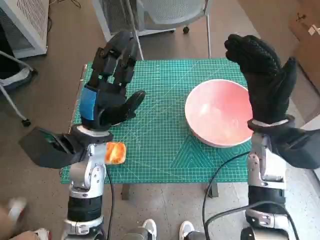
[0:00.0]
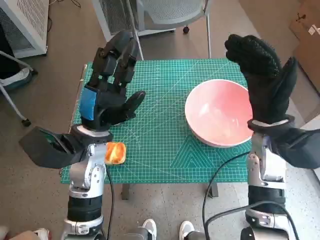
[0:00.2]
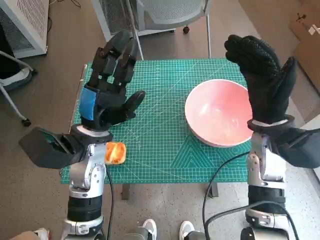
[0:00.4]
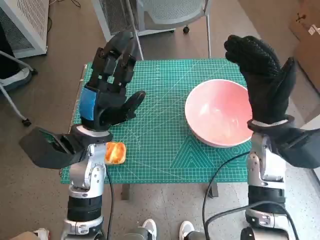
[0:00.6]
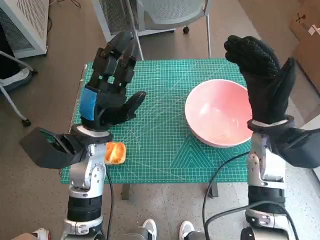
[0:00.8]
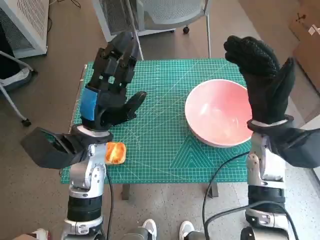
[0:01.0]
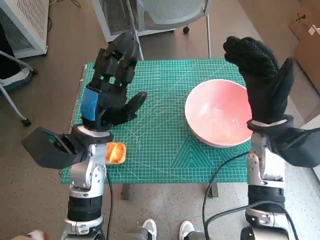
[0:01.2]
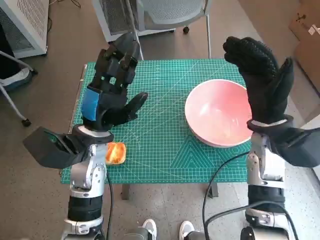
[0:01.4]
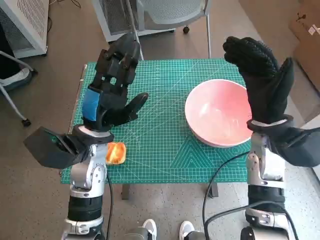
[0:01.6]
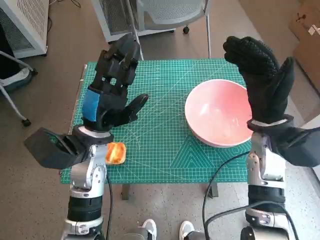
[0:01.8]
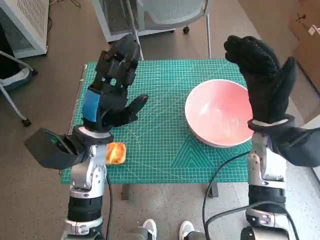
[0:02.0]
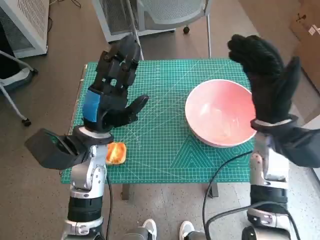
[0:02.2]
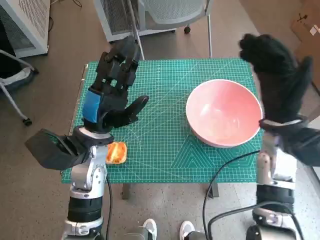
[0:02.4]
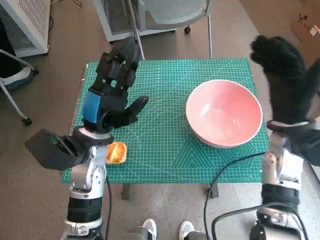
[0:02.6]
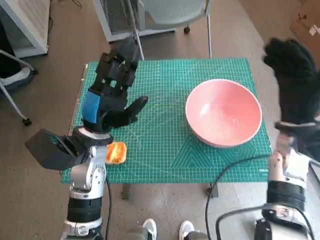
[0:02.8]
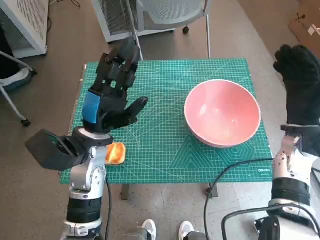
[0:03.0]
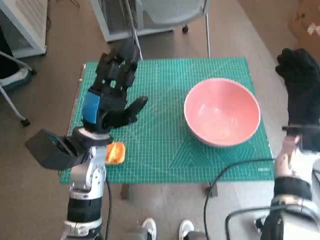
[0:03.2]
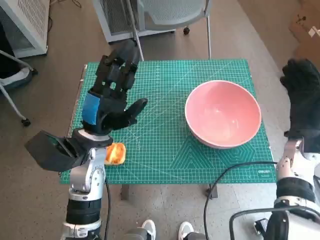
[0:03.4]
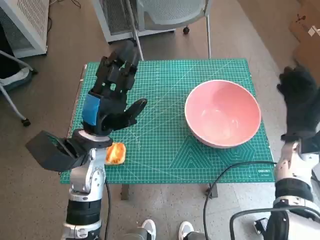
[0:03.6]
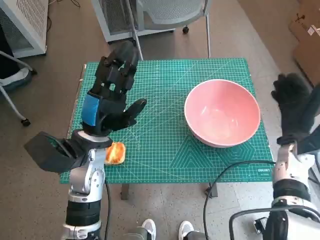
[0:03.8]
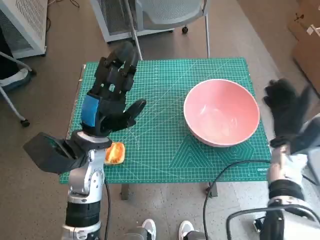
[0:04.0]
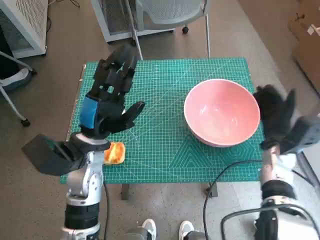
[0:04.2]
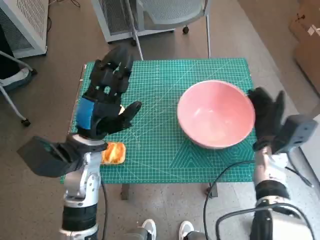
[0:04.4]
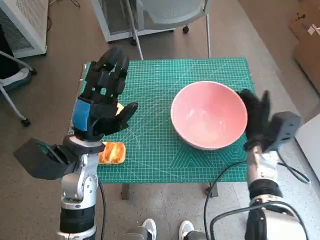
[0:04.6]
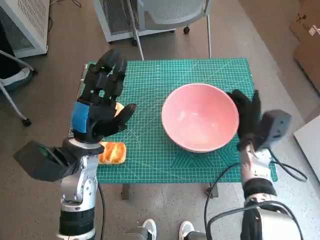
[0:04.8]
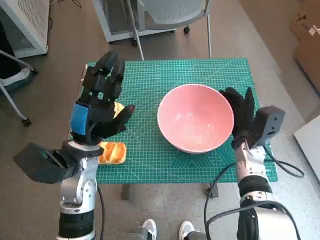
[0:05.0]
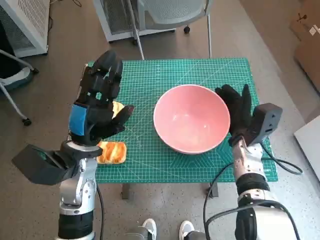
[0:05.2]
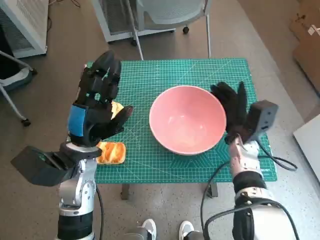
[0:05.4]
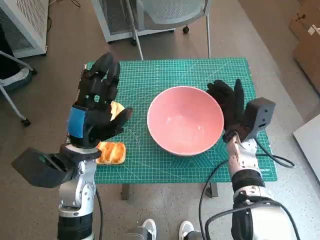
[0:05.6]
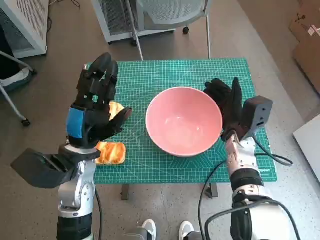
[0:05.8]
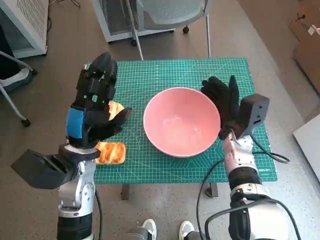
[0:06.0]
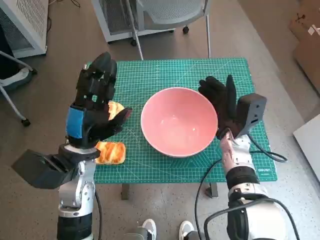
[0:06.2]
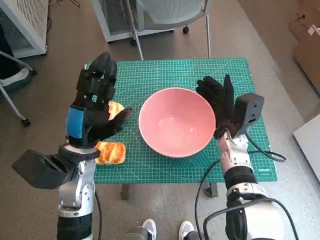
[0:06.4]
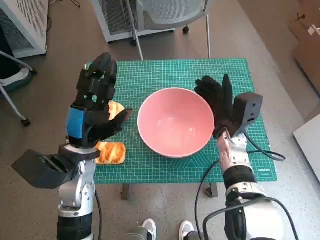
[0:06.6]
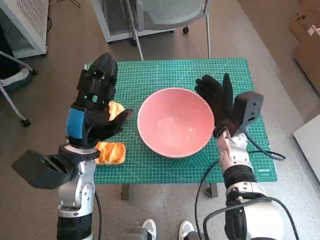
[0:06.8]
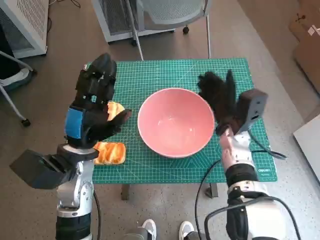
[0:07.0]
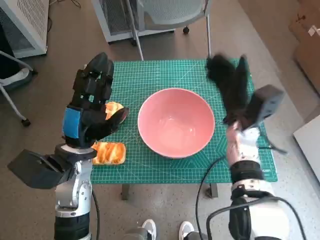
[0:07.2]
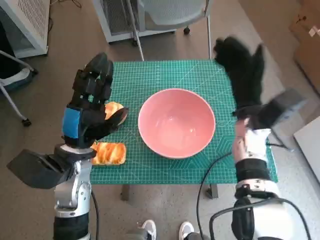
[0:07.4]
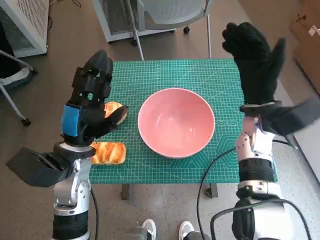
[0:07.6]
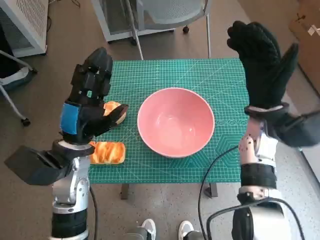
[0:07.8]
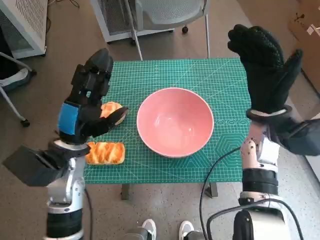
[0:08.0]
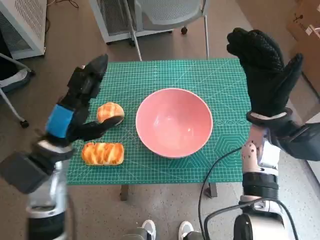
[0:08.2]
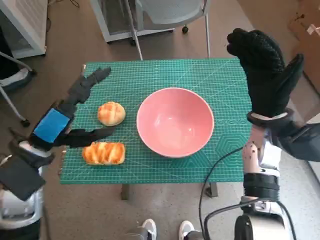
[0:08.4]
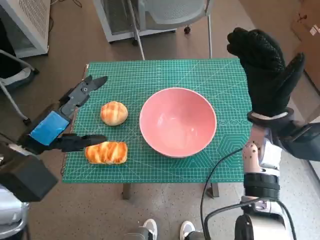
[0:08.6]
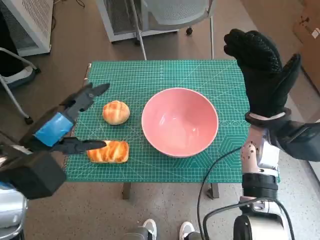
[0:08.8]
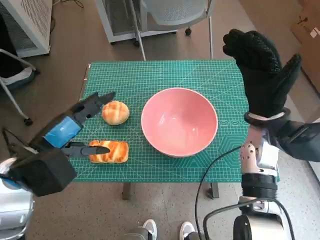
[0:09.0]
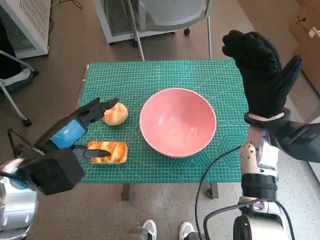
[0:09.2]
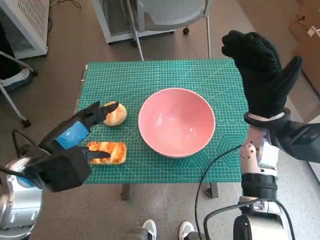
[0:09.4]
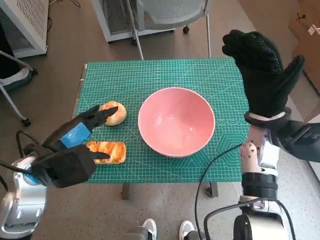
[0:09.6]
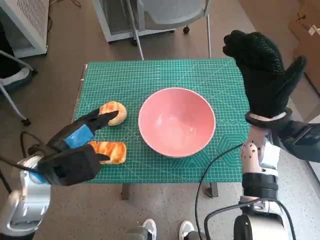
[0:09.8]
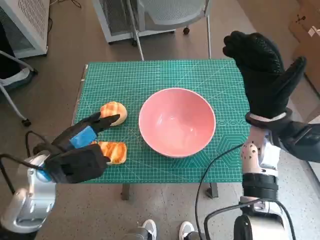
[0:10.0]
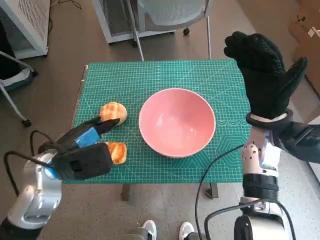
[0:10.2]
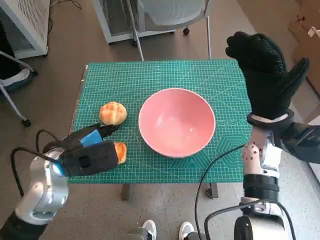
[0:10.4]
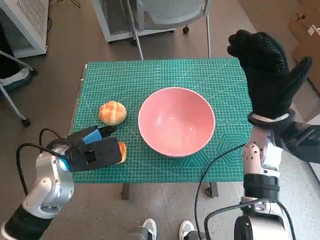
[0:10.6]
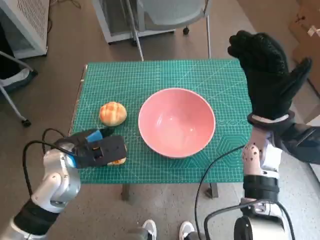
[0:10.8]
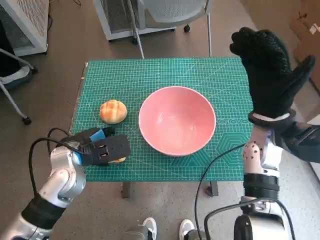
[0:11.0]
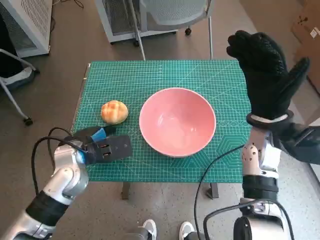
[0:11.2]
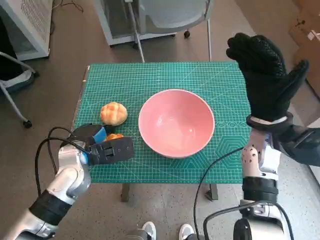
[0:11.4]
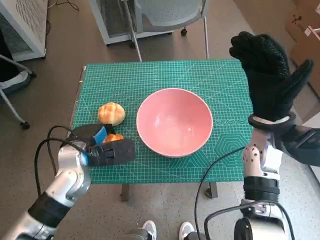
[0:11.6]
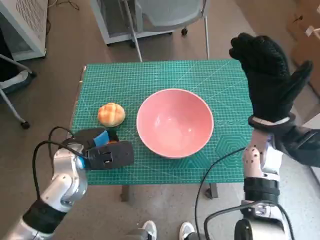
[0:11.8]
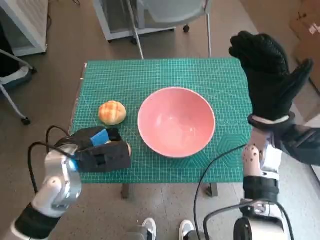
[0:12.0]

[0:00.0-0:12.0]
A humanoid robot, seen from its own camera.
Step, 0:00.0 to 0:06.8: Move the pink bowl to the center of table with right hand.
Step, 0:07.0 to 0:11.0: Grasp the long bread with left hand.
0:01.6 to 0:03.0: The right hand is displaced to the right by some 5 cm.
0:03.0 to 0:04.4: The right hand goes roughly 10 cm downward.
0:04.4 to 0:06.0: The right hand moves to the left, approximately 10 cm.
0:06.0 to 0:07.6: The right hand shifts some 10 cm upward.
0:07.6 to 0:09.0: The left hand goes about 5 cm upward.
0:09.0 to 0:10.4: The left hand travels downward by about 5 cm.

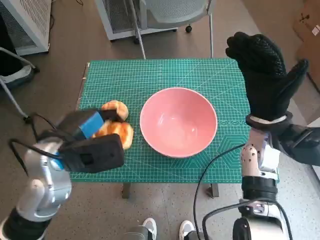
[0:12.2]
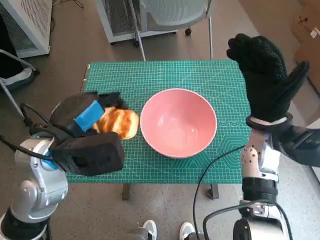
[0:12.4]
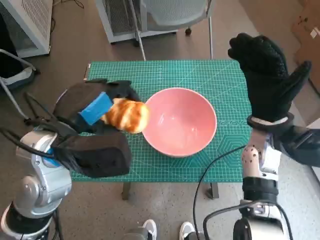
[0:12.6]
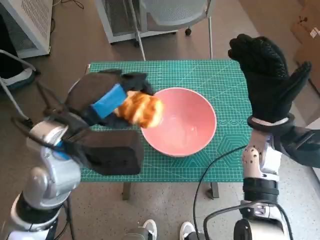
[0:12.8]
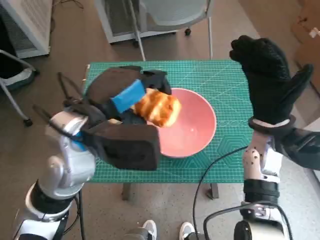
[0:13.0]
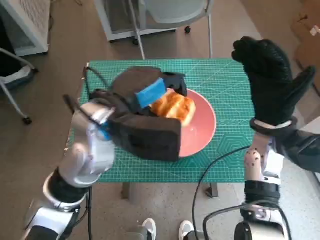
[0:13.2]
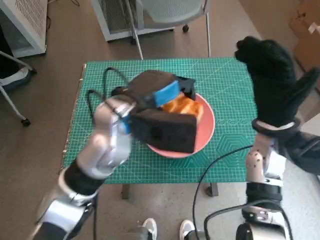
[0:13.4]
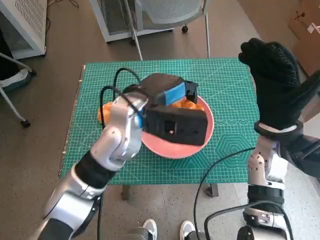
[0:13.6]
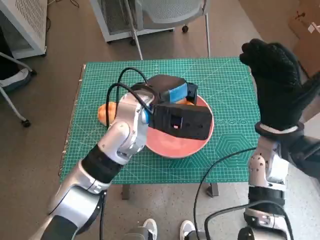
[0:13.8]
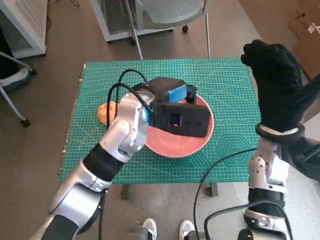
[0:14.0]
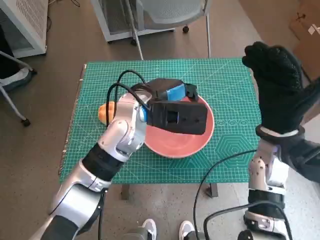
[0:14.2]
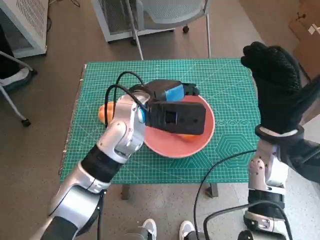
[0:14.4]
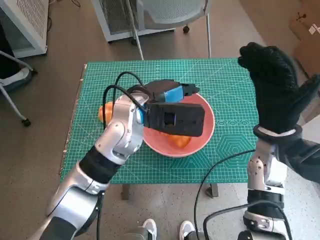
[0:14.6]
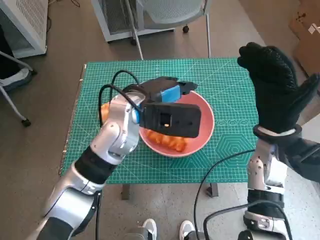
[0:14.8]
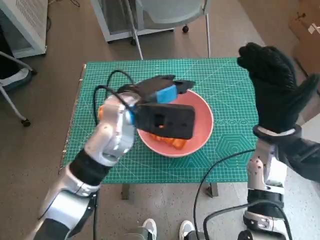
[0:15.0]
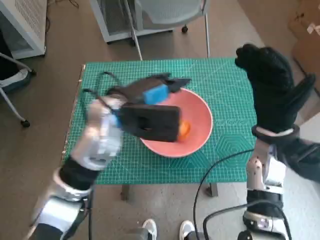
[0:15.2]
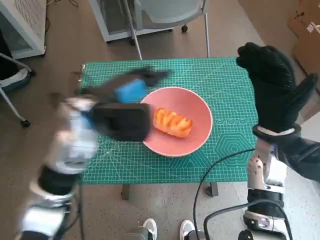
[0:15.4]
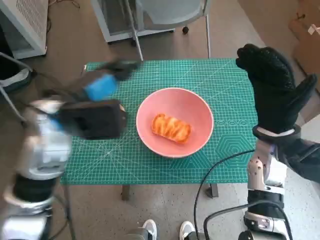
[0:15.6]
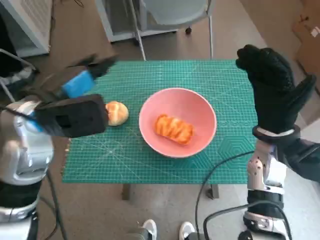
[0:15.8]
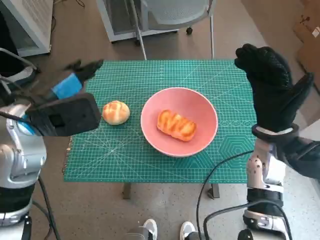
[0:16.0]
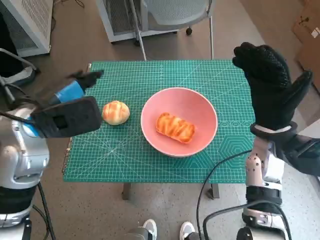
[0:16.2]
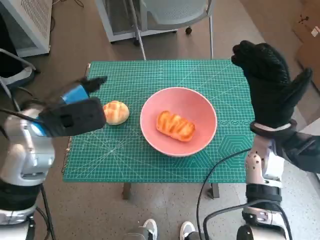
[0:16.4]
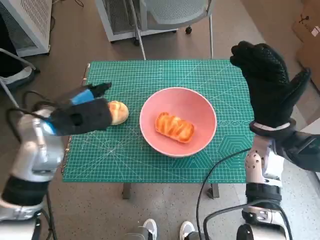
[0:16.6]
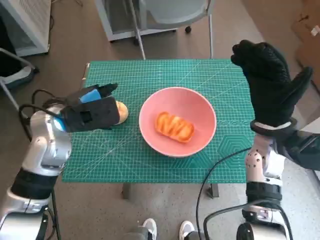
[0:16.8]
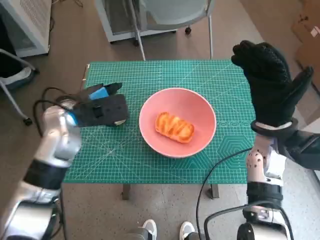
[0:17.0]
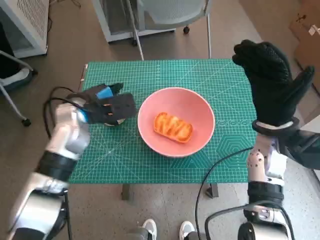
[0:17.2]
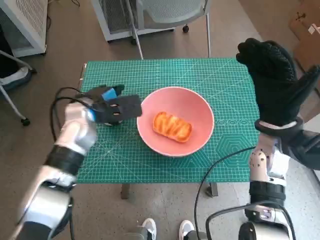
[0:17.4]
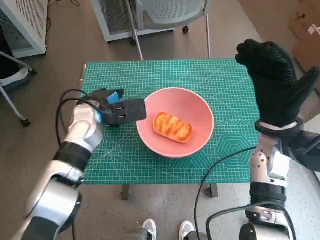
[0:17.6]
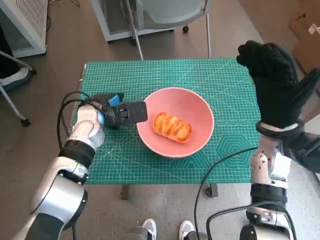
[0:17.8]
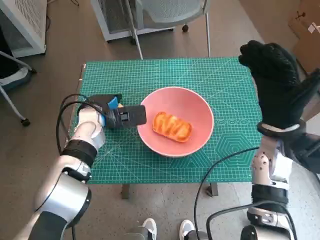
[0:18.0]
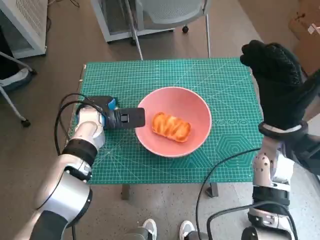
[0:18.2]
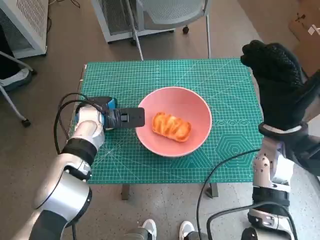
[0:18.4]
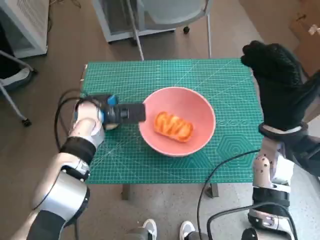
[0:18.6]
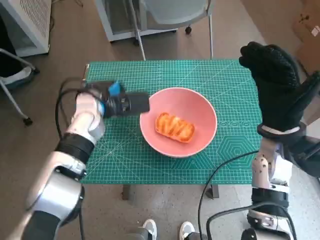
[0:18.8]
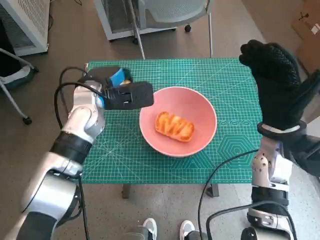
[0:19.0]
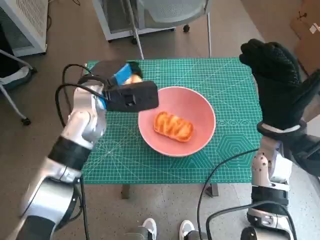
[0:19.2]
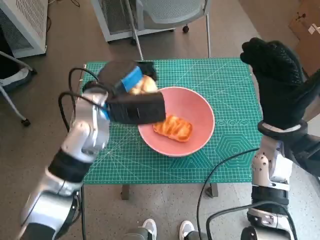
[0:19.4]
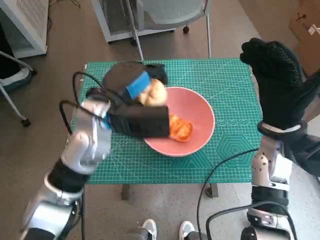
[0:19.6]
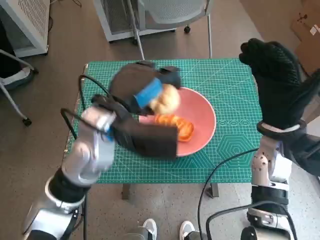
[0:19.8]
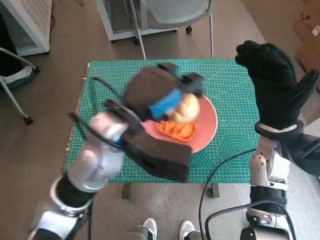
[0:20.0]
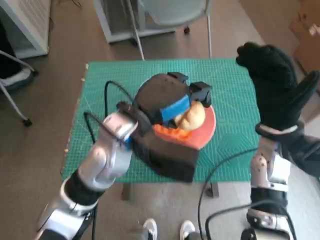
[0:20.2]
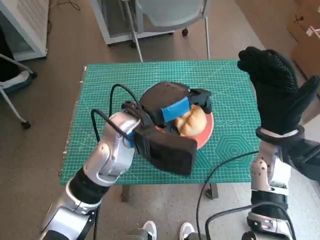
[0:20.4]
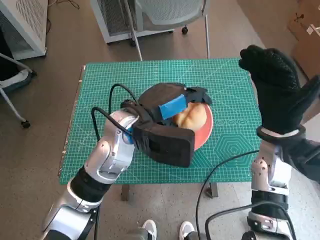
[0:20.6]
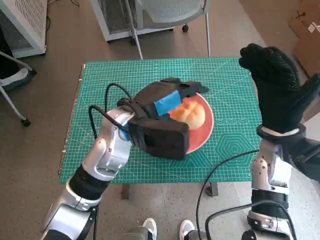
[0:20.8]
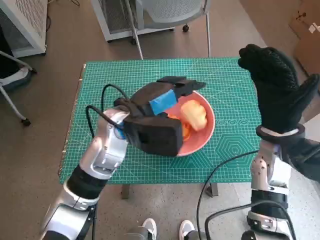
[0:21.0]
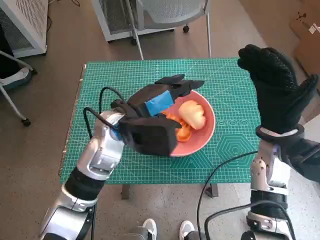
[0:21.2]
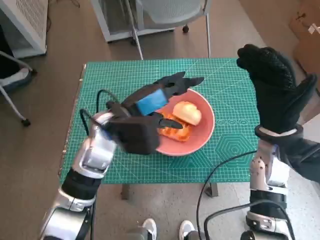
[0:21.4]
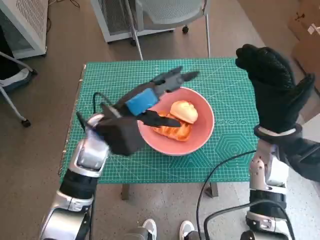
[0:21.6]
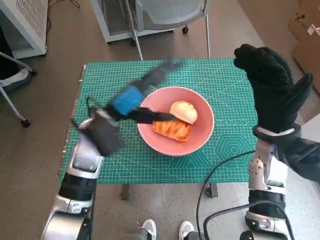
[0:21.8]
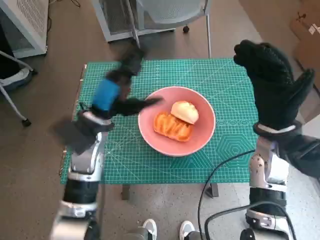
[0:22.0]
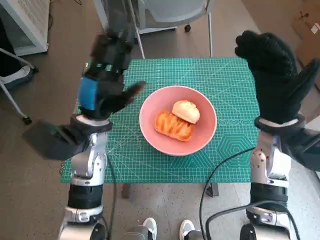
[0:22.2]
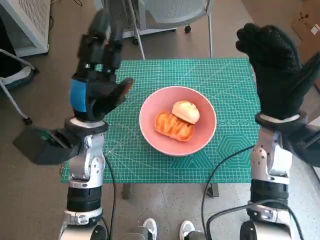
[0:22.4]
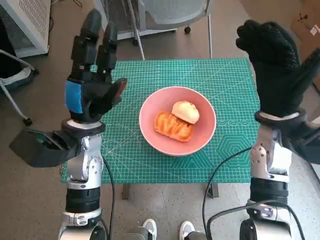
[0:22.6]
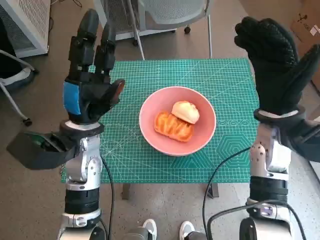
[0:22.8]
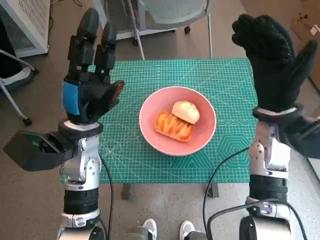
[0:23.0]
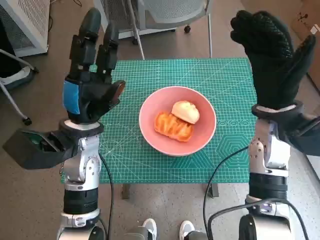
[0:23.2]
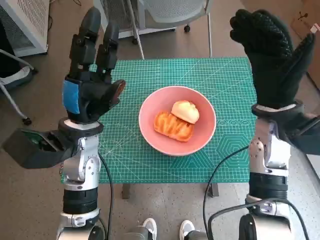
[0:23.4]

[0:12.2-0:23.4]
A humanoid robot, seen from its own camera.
Step, 0:12.2 to 0:15.0: Place the long bread in pink bowl with left hand.
Step, 0:15.2 to 0:18.2: Grasp the round bread with left hand.
Step, 0:18.4 to 0:21.0: Place the round bread in pink bowl with left hand.
0:12.2 to 0:13.8: The left hand goes about 15 cm to the right and forward.
0:13.8 to 0:15.4: The left hand goes about 10 cm to the left.
0:15.4 to 0:17.0: The left hand travels to the left by roughly 5 cm.
0:17.0 to 0:18.6: The left hand heads downward, covering roughly 5 cm.
0:18.6 to 0:20.2: The left hand goes roughly 15 cm to the right, upward and backward.
0:20.2 to 0:21.8: The left hand moves to the left and downward, some 10 cm.
